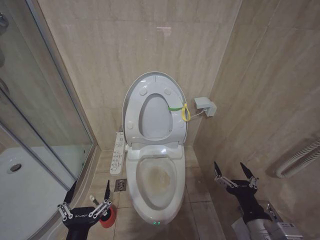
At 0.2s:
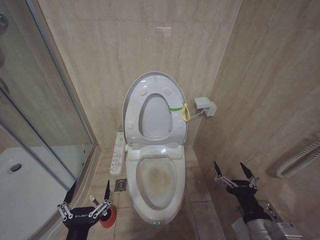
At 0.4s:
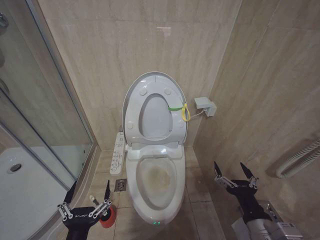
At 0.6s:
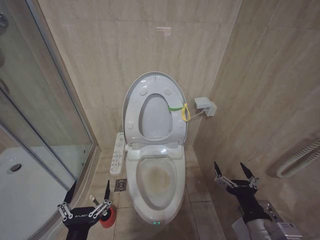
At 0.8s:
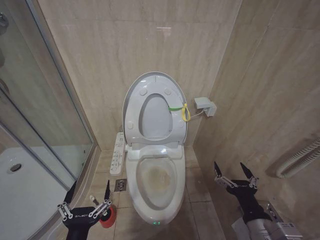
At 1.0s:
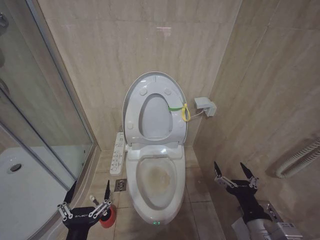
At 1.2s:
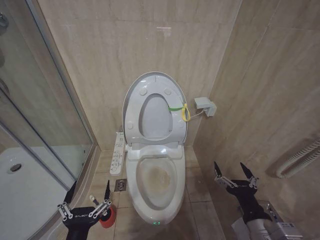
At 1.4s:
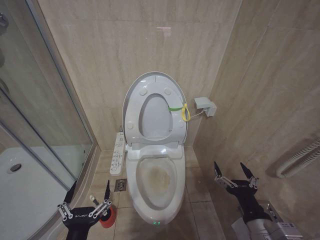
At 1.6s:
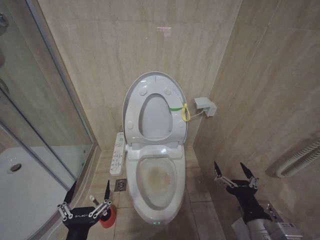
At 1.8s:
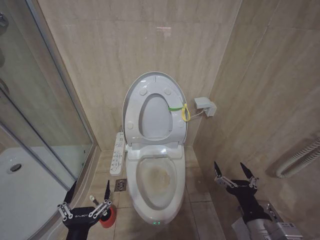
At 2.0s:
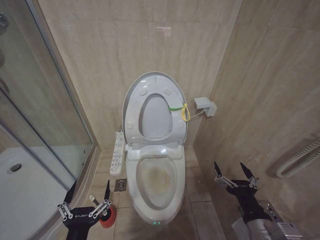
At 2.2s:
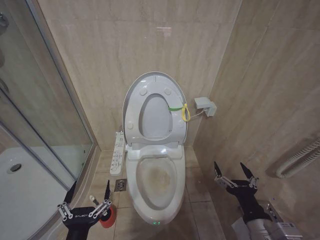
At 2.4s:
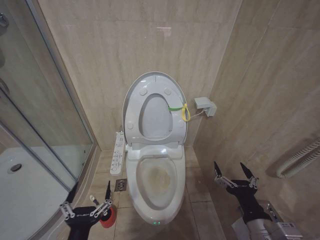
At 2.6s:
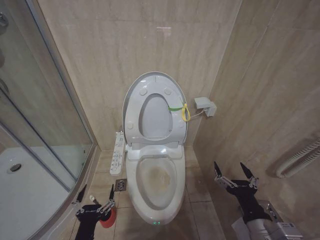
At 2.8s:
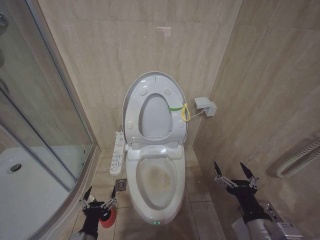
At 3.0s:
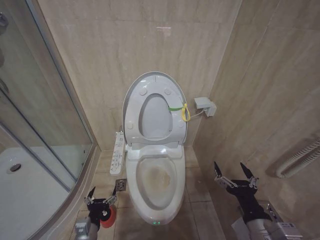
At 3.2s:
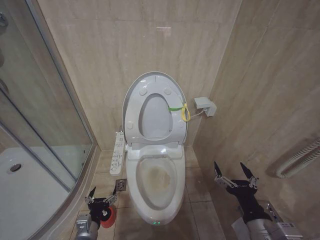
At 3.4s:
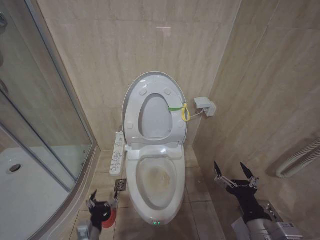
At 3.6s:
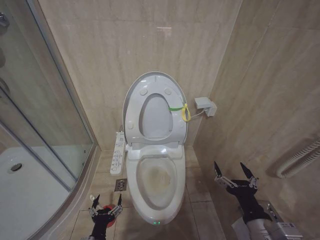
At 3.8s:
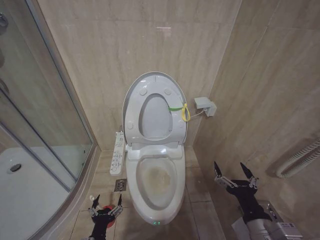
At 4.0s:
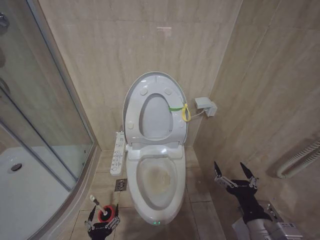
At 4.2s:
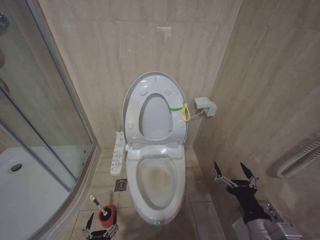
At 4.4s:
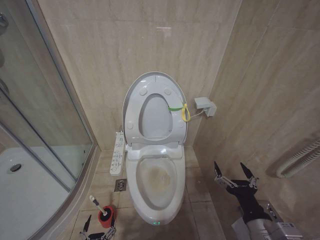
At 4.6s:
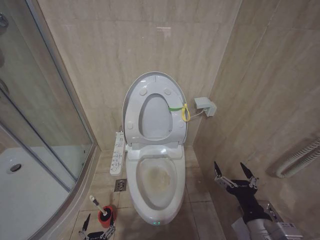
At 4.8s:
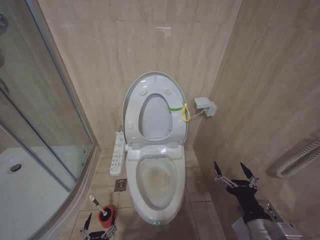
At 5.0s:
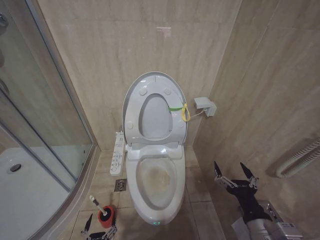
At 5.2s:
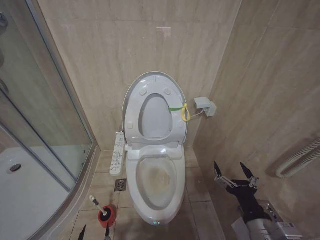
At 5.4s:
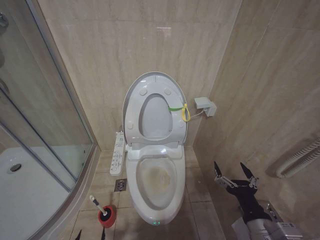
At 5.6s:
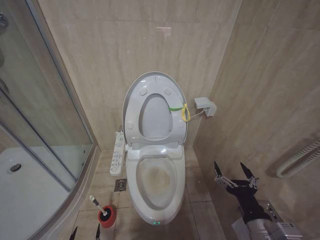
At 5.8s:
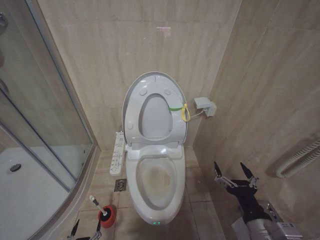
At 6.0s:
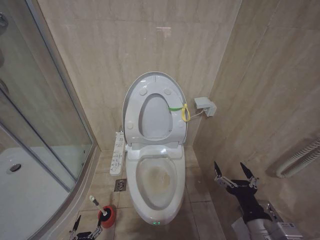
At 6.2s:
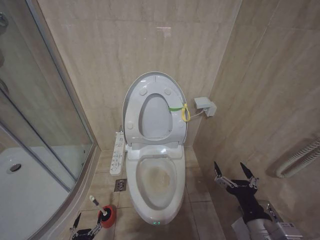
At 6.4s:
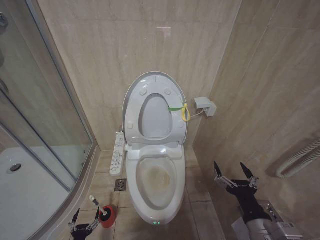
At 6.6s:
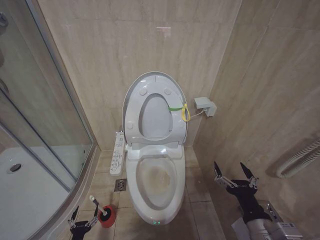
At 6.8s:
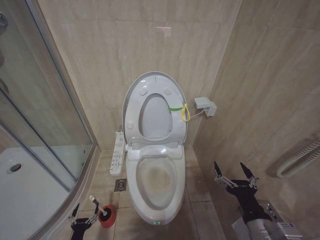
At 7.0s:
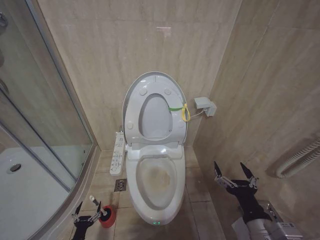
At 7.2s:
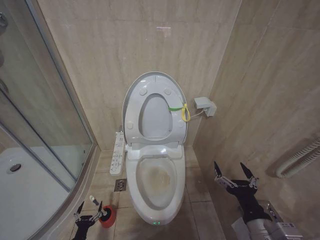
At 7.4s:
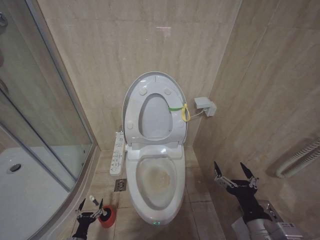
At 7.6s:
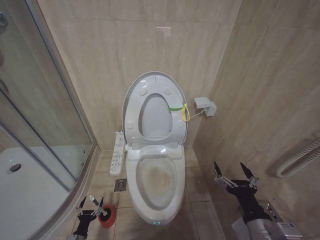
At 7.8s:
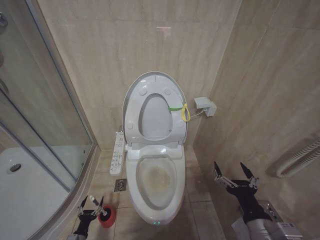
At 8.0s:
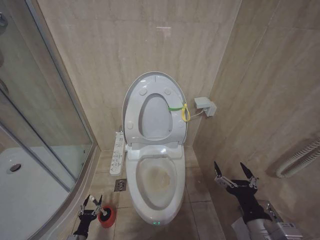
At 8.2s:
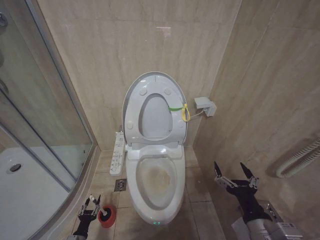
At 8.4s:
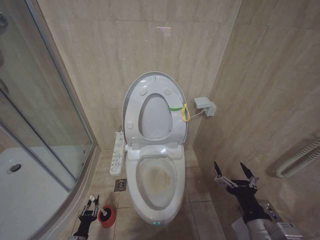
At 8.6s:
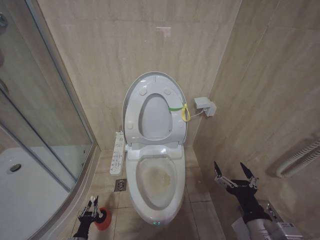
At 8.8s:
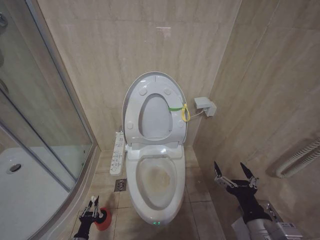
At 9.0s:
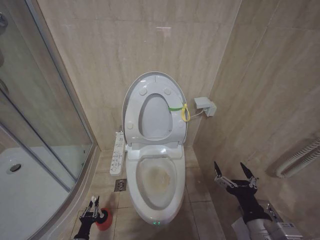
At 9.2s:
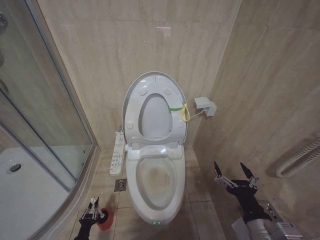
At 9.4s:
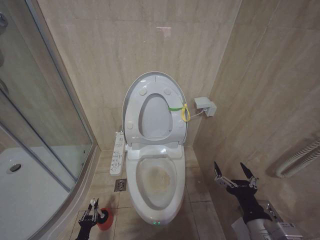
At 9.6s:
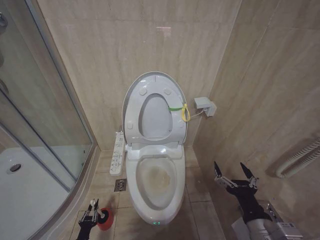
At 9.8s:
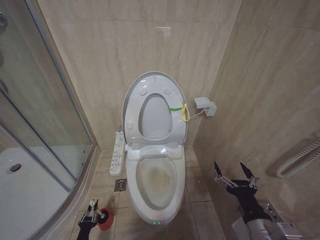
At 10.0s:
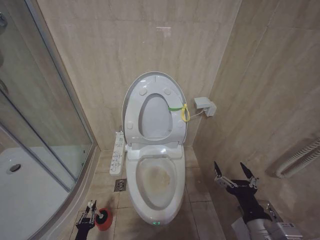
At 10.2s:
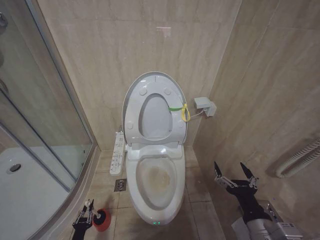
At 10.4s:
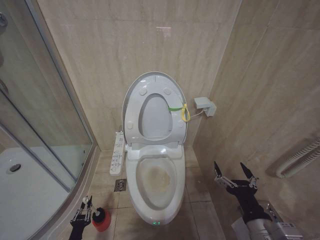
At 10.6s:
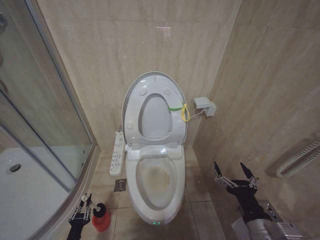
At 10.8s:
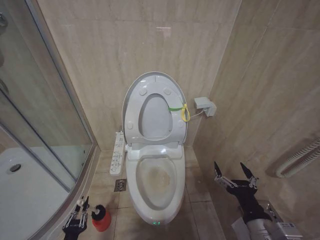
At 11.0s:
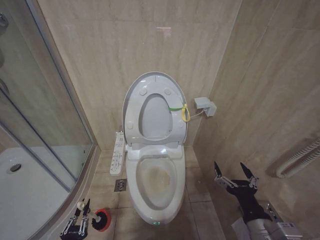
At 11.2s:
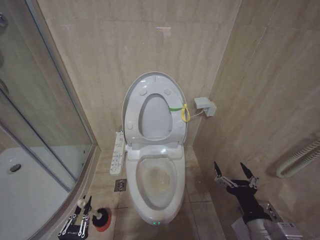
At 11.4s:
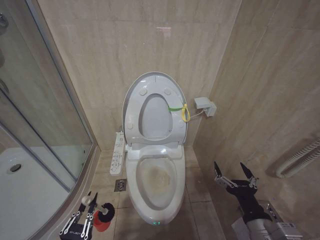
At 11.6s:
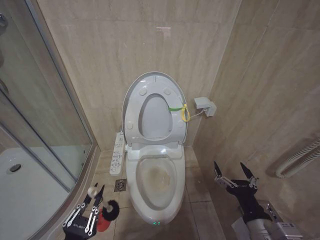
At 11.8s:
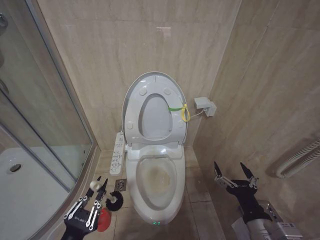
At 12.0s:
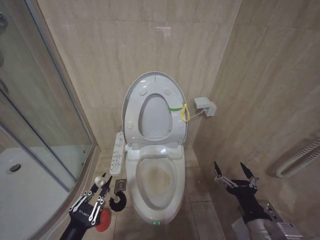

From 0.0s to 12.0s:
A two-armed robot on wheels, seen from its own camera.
Task of the whole recording: Open the toilet lid, clean the toilet bowl with a toilet brush, close the toilet lid, and flush.
From 0.0s to 1.6s: Neither gripper changes place.
From 1.6s to 3.0s: The left gripper goes approximately 15 cm downward and forward.
From 3.0s to 4.4s: The left gripper is displaced downward and backward by about 15 cm.
From 4.4s to 6.0s: The left gripper moves downward and to the left, about 15 cm.
From 6.0s to 7.6s: The left gripper travels forward and to the left by about 10 cm.
From 7.6s to 9.0s: The left gripper closes up.
From 9.0s to 10.4s: The grippers move only a little.
From 10.4s to 12.0s: The left gripper heads upward, covering some 30 cm.

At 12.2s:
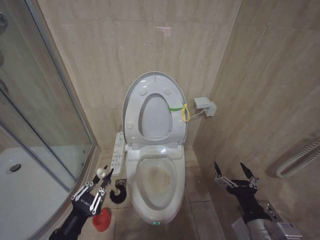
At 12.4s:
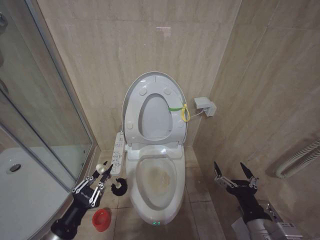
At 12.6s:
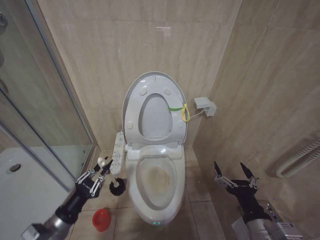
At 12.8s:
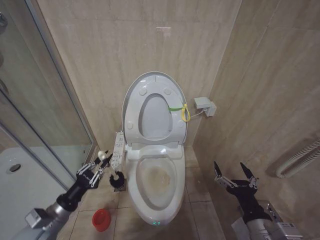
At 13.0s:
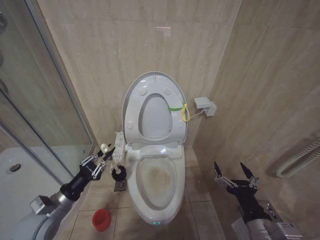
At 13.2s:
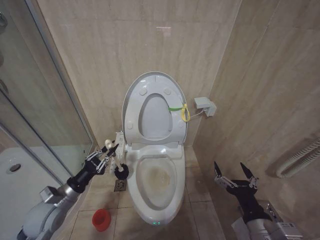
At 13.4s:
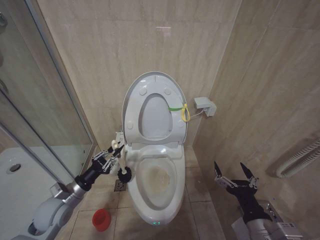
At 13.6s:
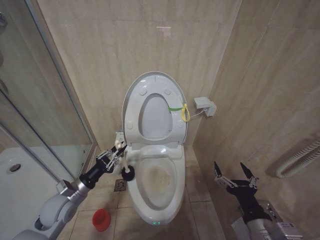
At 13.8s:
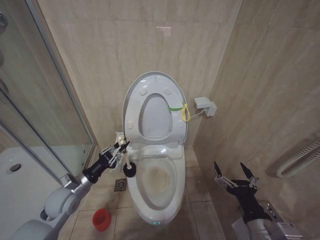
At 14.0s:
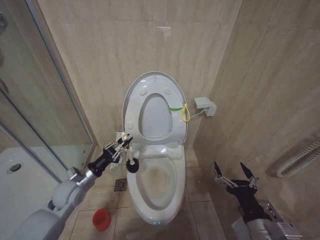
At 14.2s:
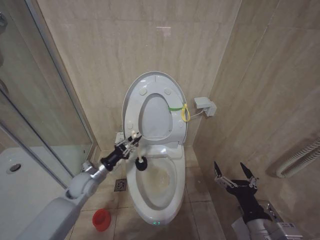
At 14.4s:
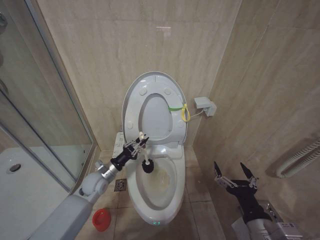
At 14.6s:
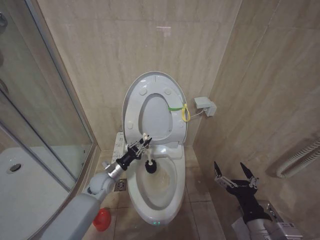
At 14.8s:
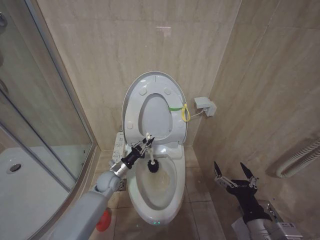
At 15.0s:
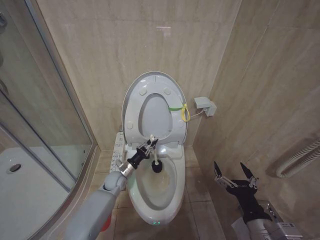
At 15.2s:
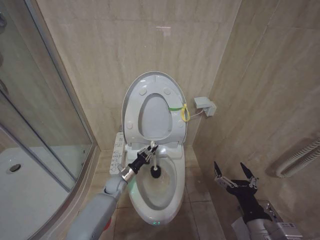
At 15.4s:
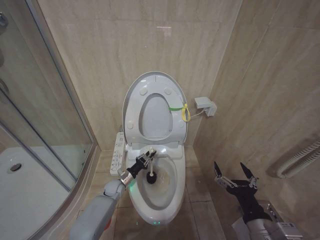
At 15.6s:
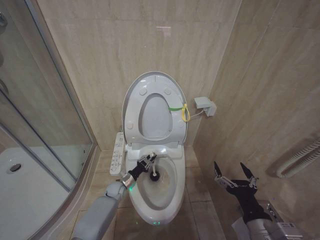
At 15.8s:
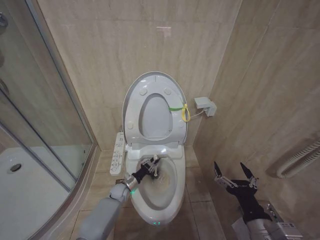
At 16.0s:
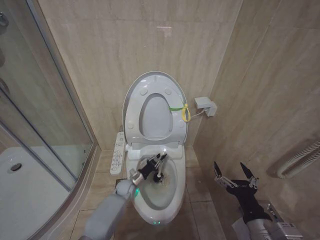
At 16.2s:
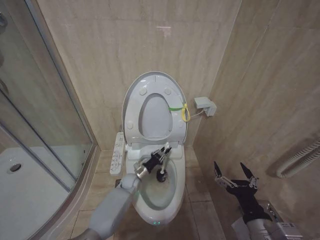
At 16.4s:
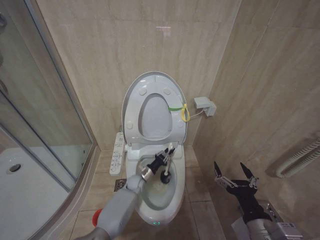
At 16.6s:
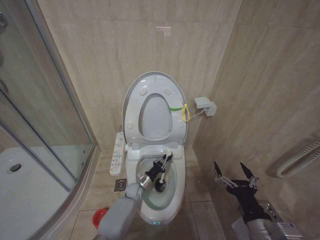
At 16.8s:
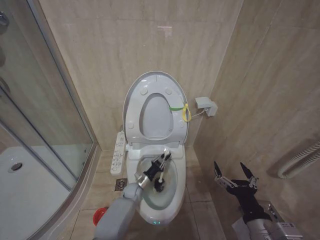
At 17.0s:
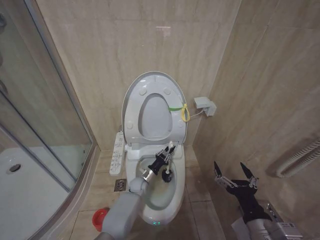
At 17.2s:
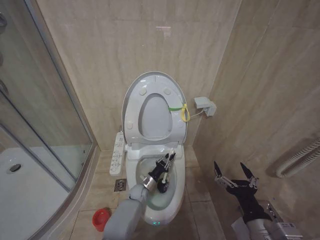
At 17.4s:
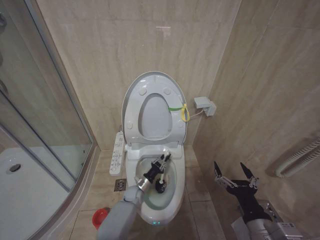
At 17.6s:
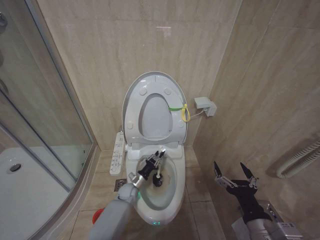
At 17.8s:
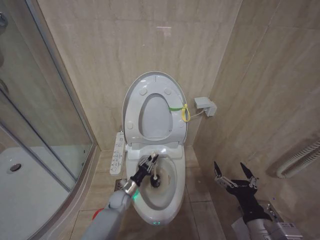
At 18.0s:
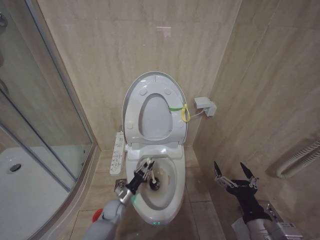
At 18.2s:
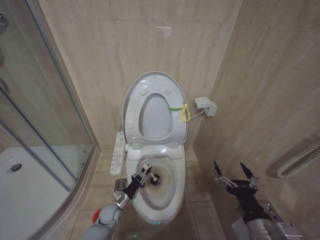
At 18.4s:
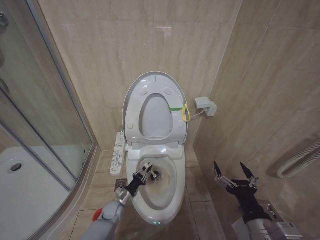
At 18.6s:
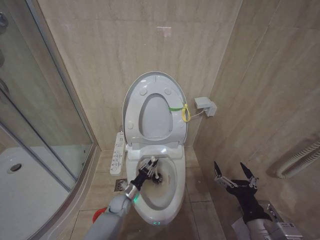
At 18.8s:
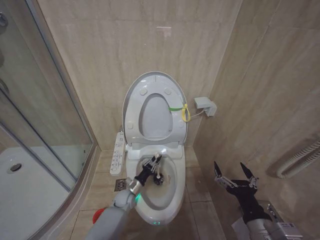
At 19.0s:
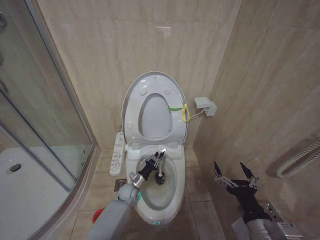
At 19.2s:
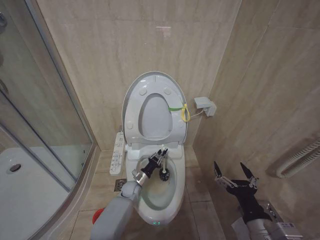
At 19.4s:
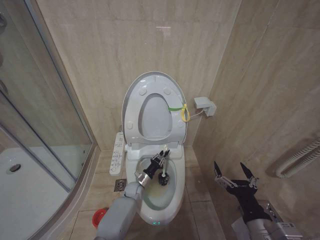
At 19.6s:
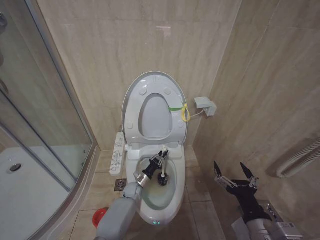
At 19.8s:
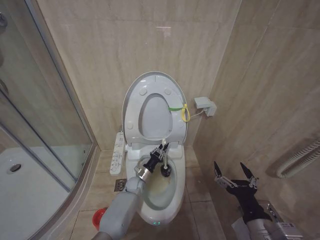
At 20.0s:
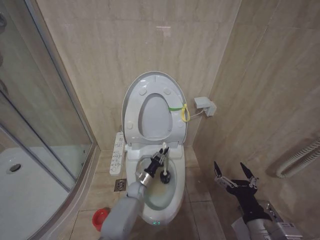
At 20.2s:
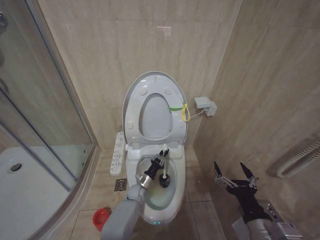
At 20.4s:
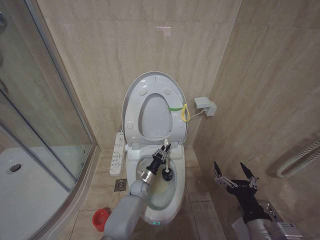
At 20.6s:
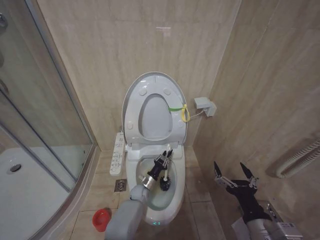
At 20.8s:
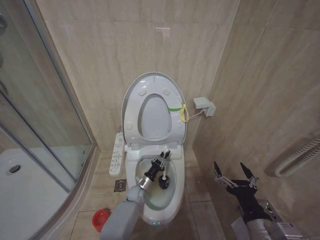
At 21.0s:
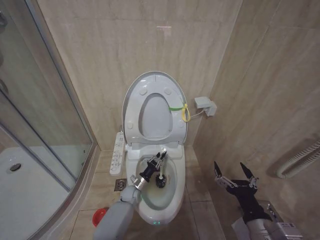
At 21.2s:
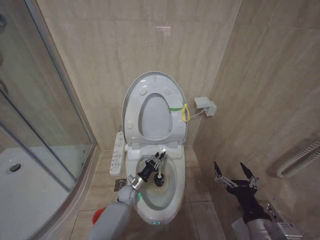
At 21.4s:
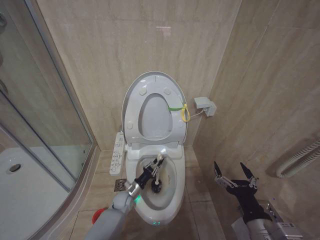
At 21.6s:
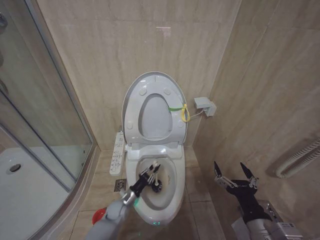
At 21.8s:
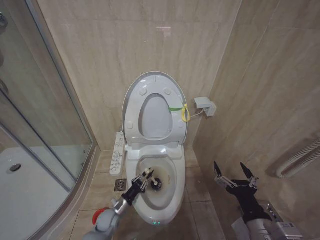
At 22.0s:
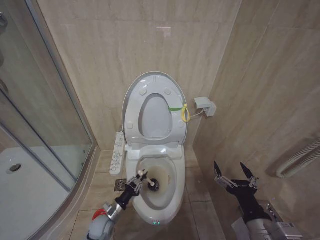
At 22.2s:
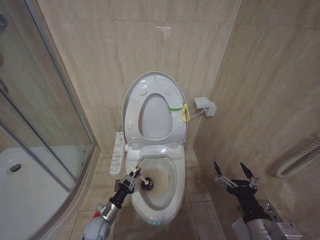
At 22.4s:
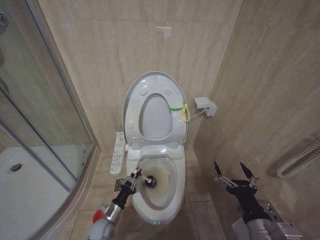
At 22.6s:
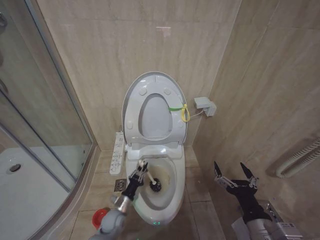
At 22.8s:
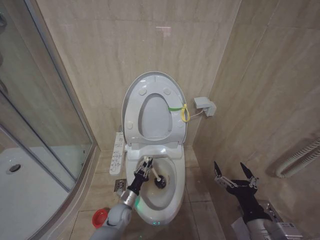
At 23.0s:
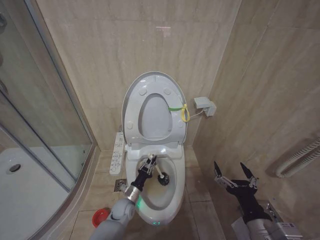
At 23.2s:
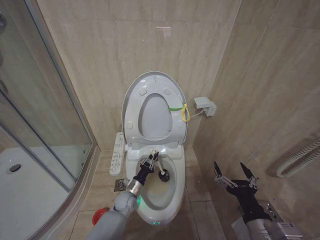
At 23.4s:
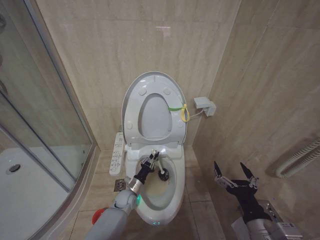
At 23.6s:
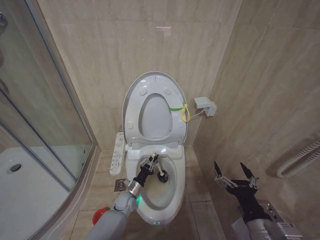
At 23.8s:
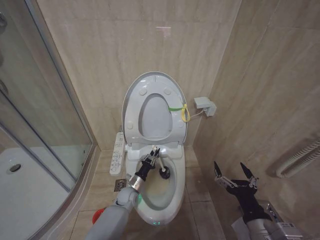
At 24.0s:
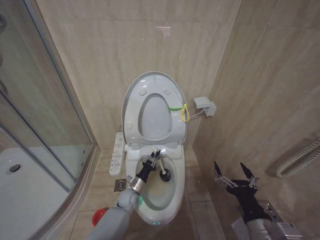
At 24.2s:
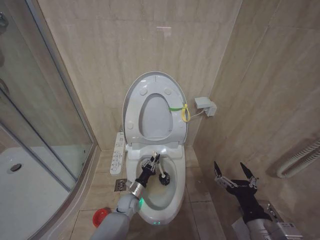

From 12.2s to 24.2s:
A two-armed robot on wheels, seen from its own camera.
Task of the whole recording: Open the toilet lid, clean the toilet bowl with a toilet brush, close the toilet lid, and flush.
From 12.2s to 13.8s: The left gripper goes approximately 20 cm forward.
From 13.8s to 15.2s: The left gripper travels to the right, forward and downward by approximately 25 cm.
From 15.2s to 16.6s: The left gripper travels to the right and downward by approximately 10 cm.
From 16.6s to 18.2s: The left gripper goes roughly 15 cm to the left and backward.
From 18.2s to 19.8s: The left gripper is displaced forward and to the right by some 15 cm.
From 19.8s to 21.2s: The grippers make only small movements.
From 21.2s to 22.6s: The left gripper heads backward and to the left, covering approximately 15 cm.
From 22.6s to 24.2s: The left gripper shifts about 10 cm forward and to the right.
